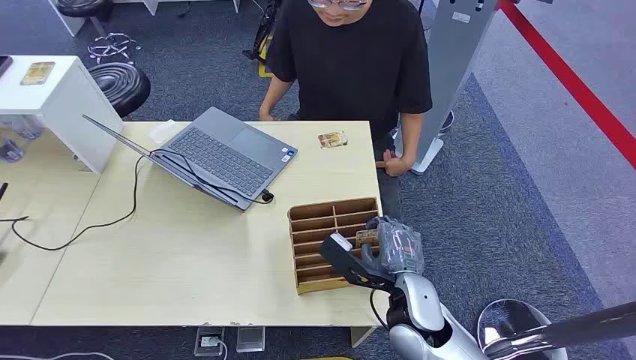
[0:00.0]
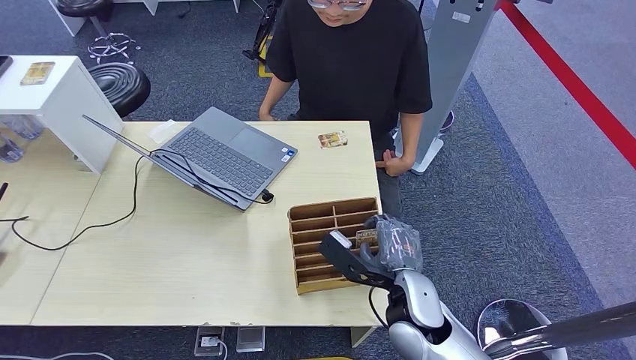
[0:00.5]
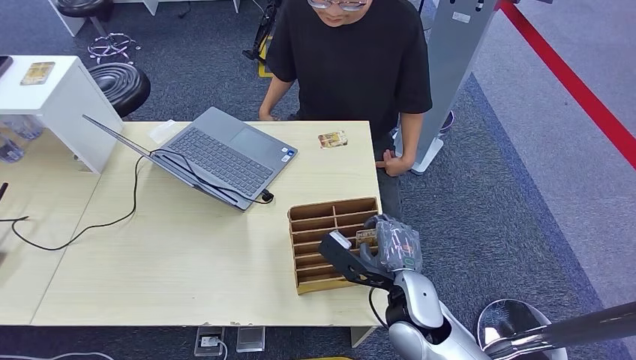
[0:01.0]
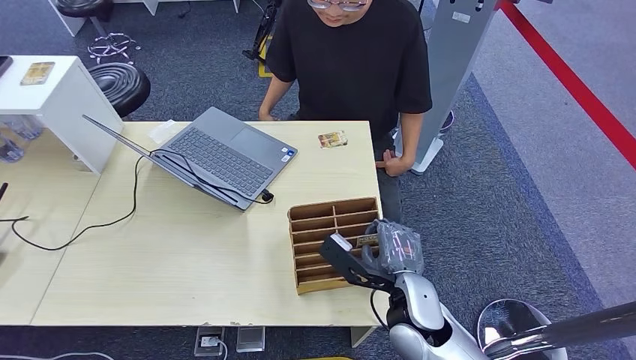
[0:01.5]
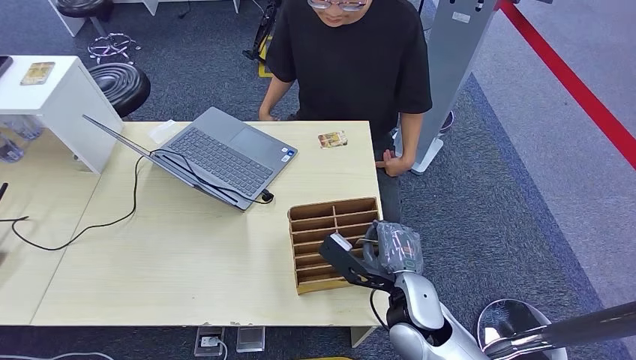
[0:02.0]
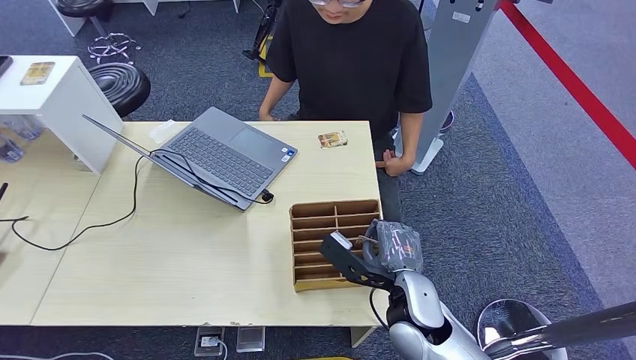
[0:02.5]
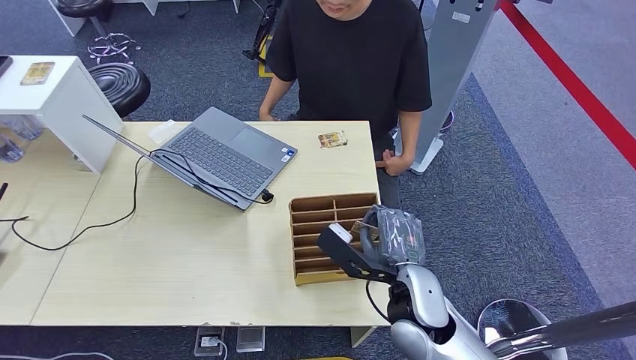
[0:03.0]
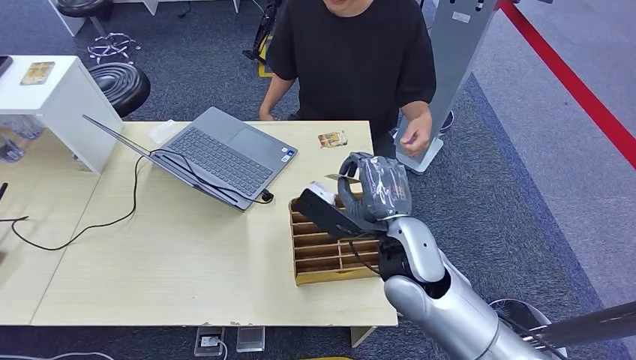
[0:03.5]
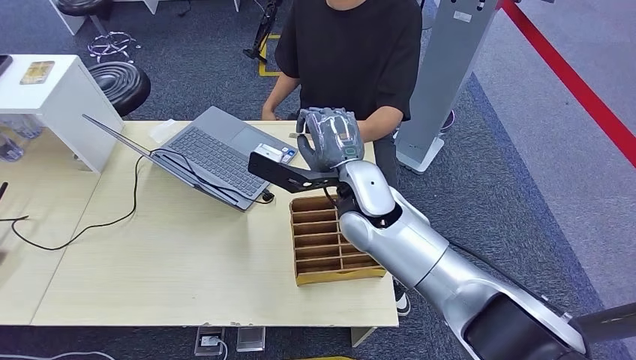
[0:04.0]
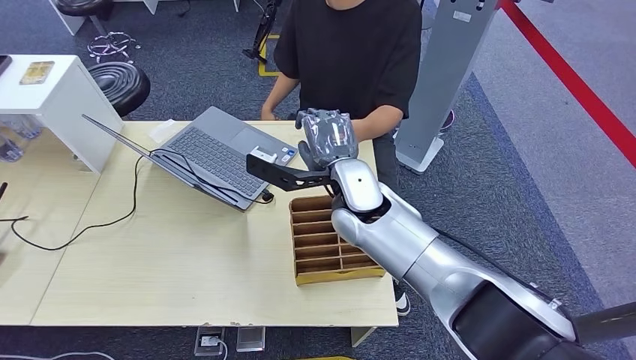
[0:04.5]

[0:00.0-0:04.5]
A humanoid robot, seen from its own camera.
Step, 0:00.0 to 0:03.0: Pick up the room card from the card holder.
Step, 0:04.0 to 0:04.5: Hand the room card to the target.
0:02.0 to 0:04.5: The right hand moves forward, upward and to the left, approximately 20 cm.
